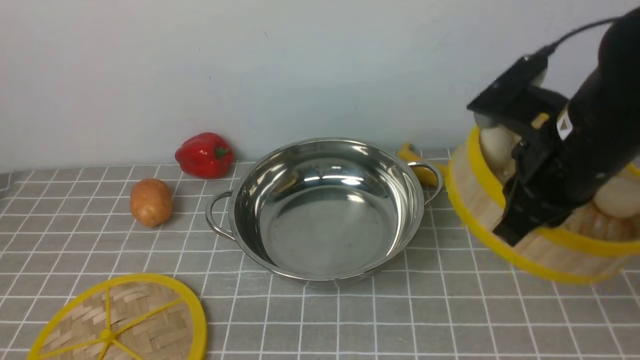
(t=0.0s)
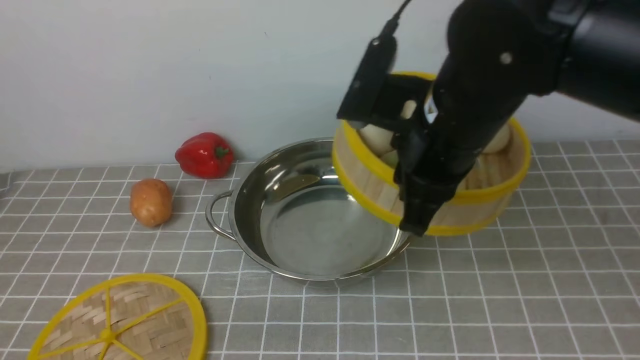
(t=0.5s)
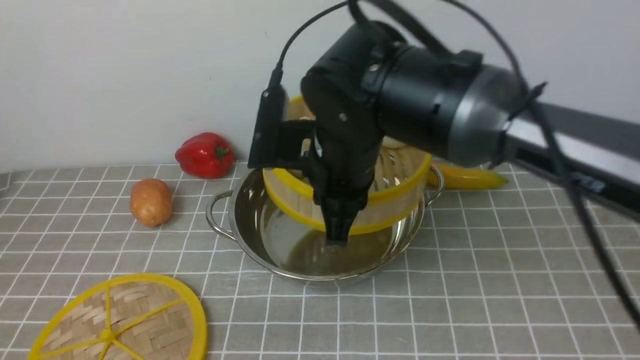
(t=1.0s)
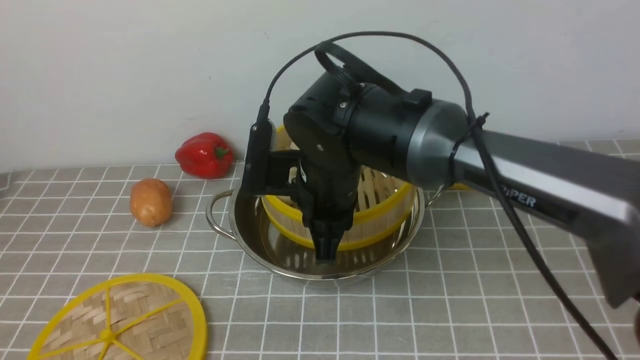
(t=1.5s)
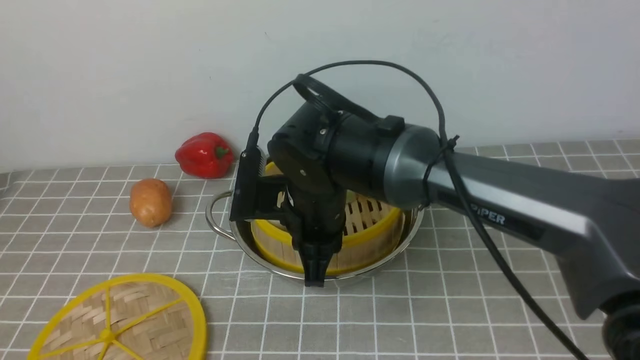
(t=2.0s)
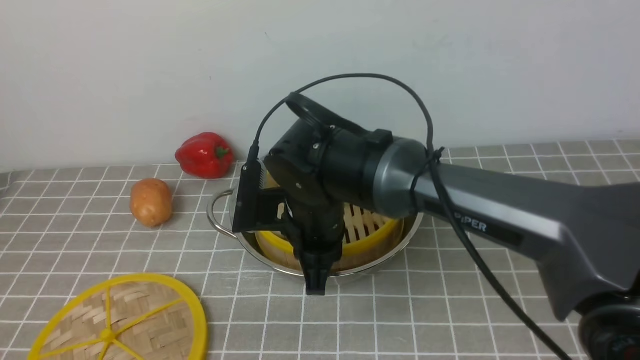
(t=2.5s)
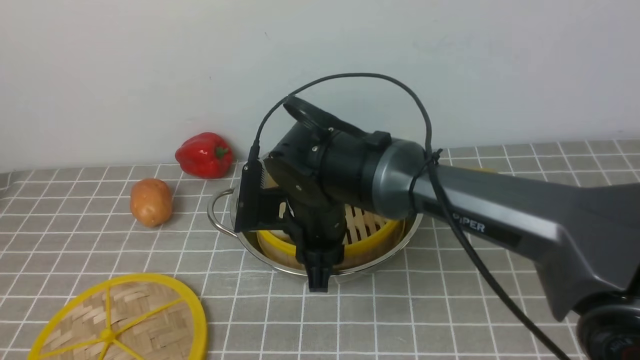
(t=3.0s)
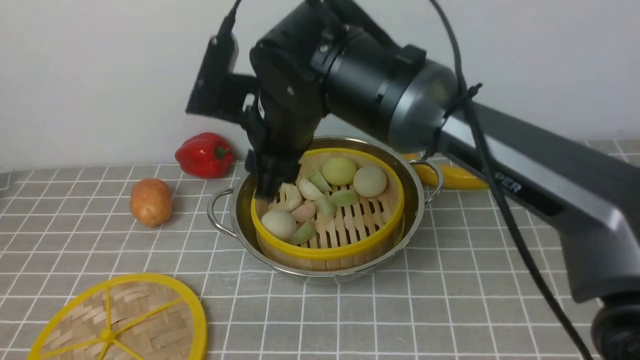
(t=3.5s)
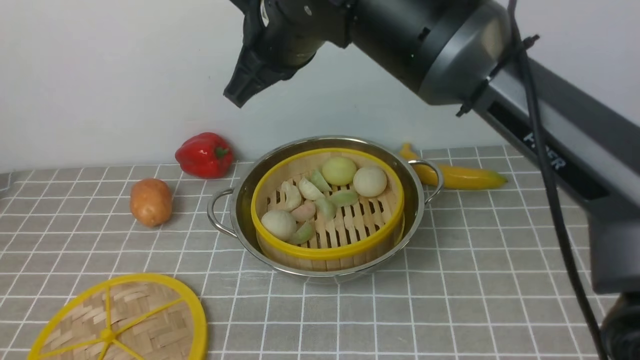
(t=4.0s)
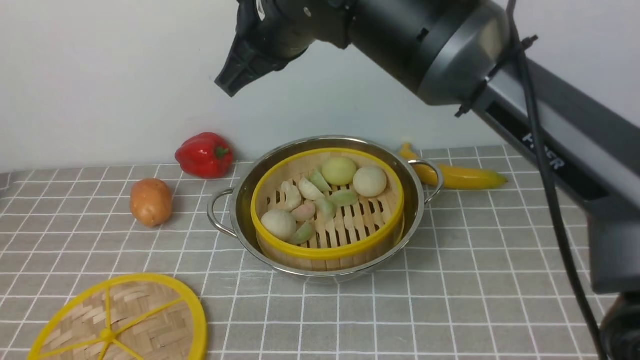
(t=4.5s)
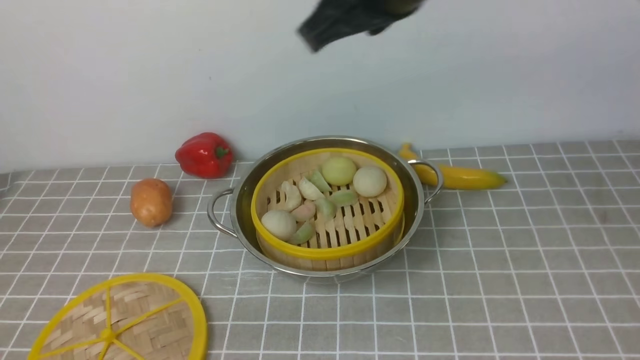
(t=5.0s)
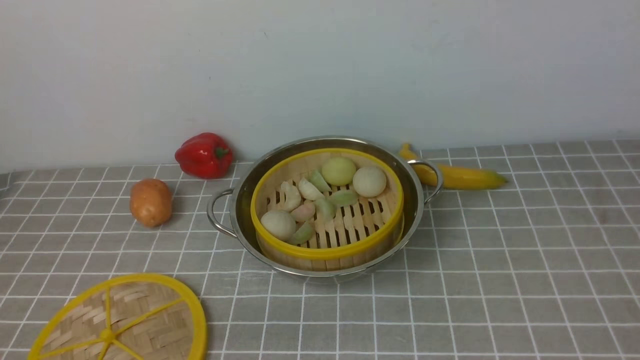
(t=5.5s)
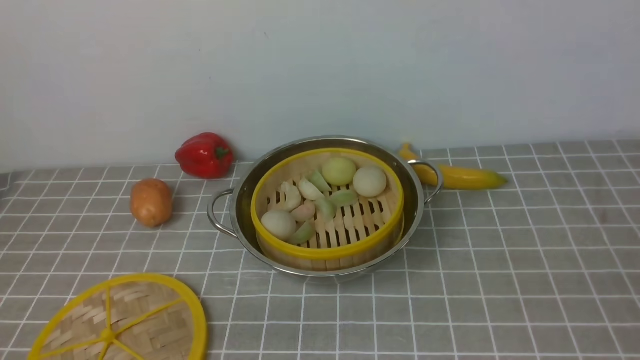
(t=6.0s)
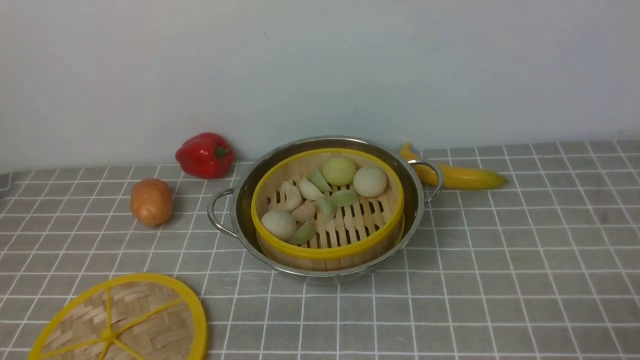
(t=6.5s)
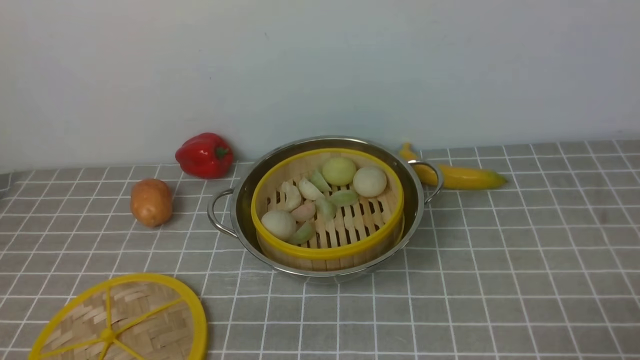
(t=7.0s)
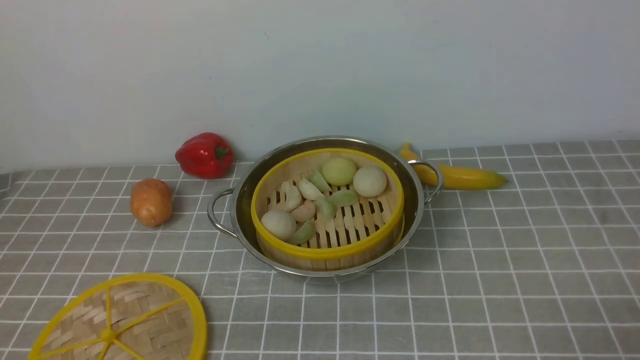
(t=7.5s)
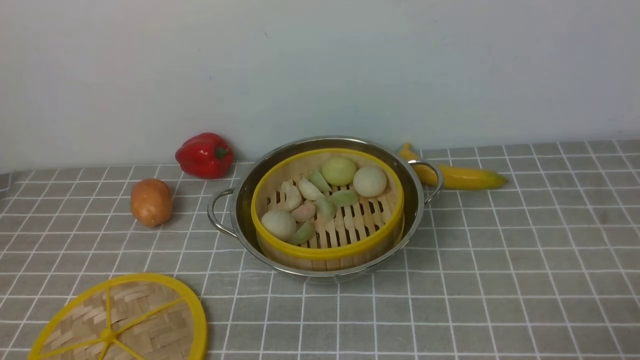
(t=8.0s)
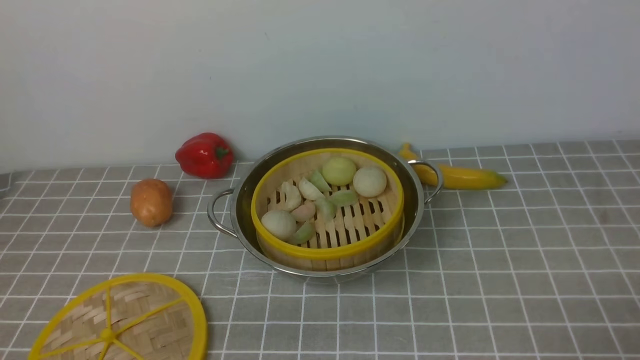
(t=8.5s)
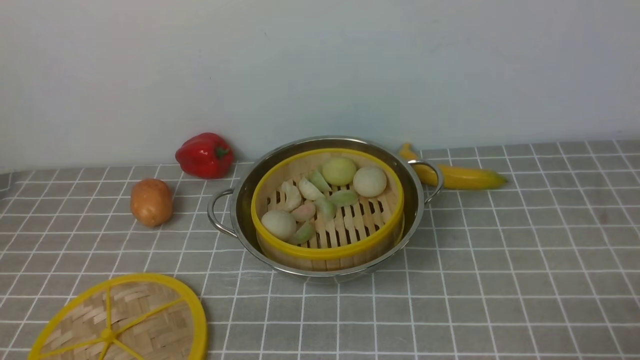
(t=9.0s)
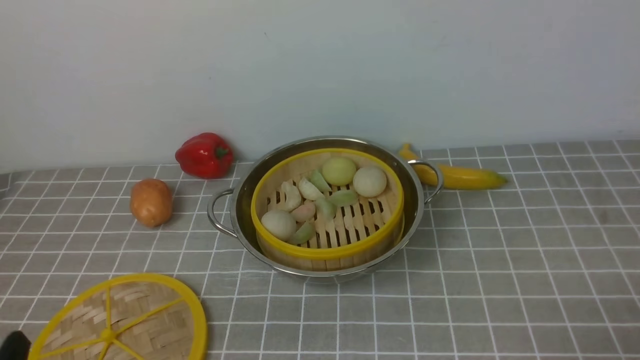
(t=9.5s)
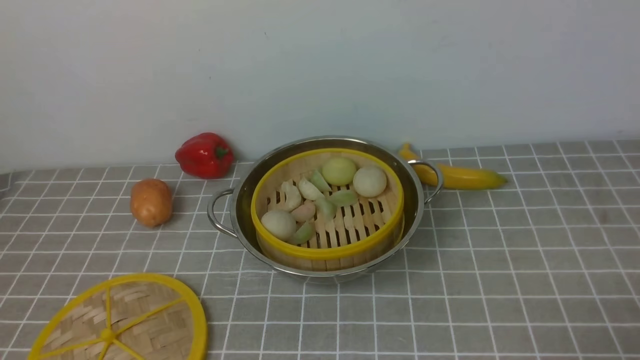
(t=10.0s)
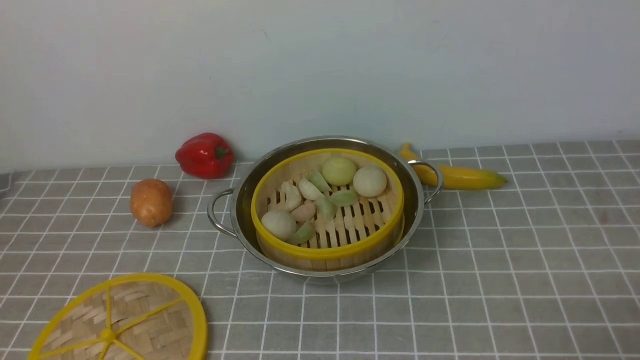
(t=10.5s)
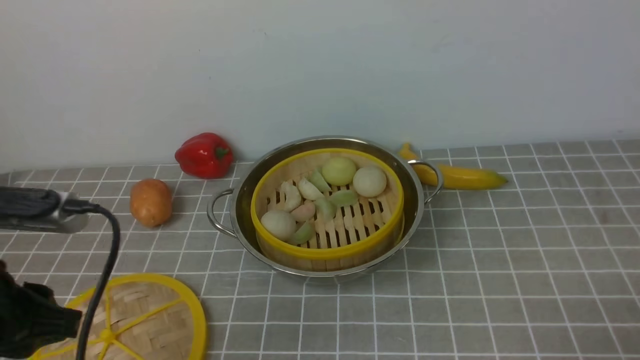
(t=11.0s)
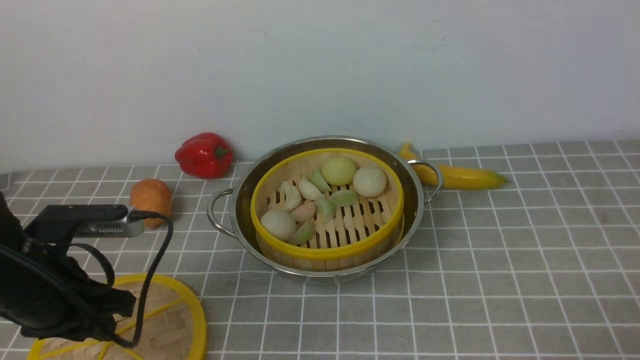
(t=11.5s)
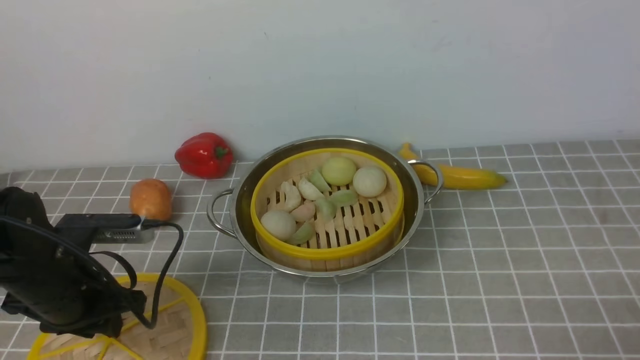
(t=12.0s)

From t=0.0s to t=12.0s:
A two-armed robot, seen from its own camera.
Task of the whole recording: place the steamer in the pot on the grey tablecloth, and put the lid on the steamer.
Step, from t=0.0s to t=3.0s: use the right arm to put the steamer into the iron steamer pot in the middle.
From t=0.0s to t=2.0s: The right gripper heads to the left, covering about 20 cm.
From t=2.0s to t=4.0s: The right gripper travels upward by some 15 cm, and opens and closes again.
From t=4.0s to t=6.0s: The right gripper heads to the right and backward, covering roughly 40 cm.
From t=10.0s to t=12.0s: The left gripper heads forward, covering roughly 20 cm.

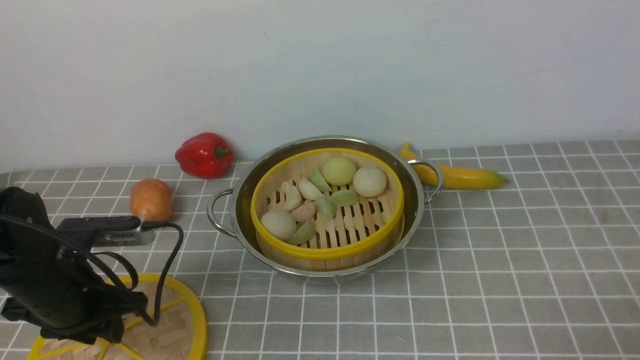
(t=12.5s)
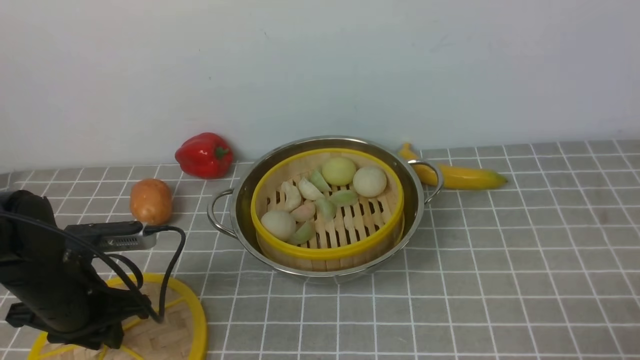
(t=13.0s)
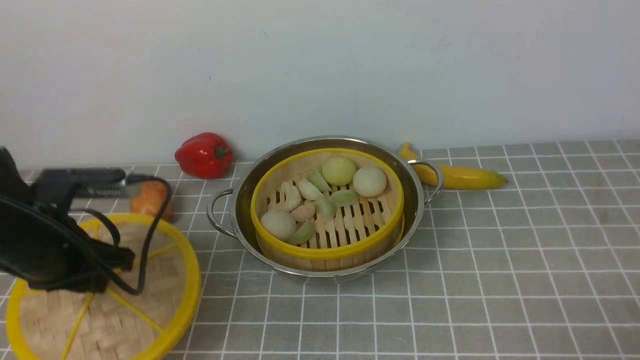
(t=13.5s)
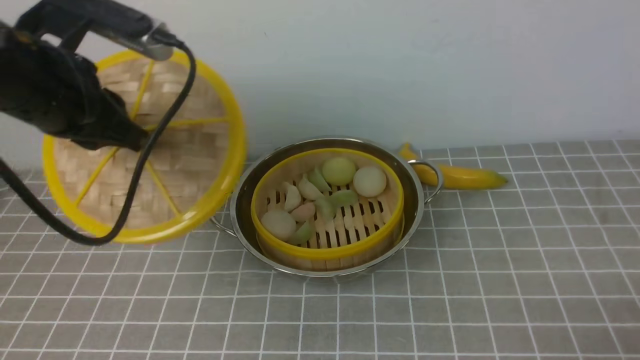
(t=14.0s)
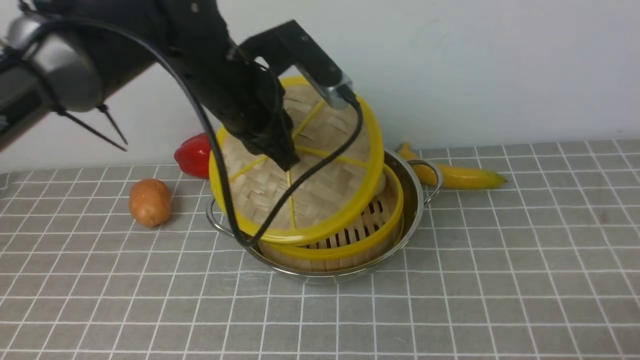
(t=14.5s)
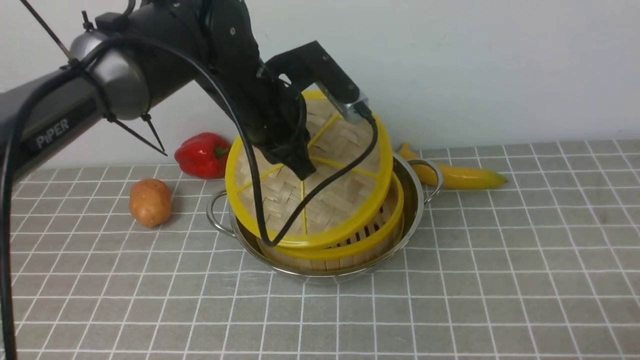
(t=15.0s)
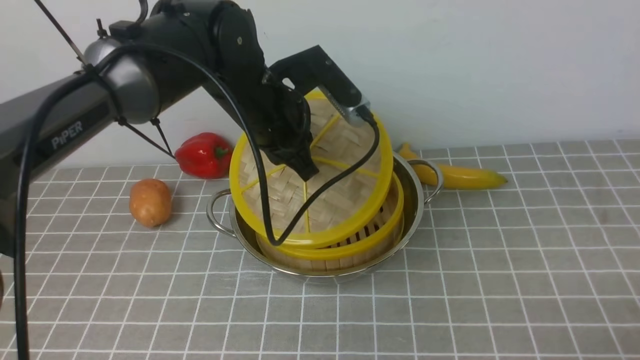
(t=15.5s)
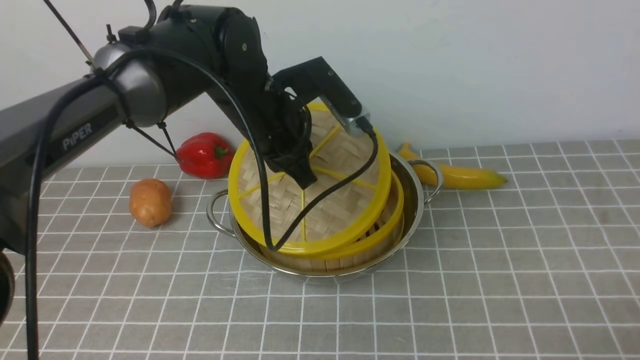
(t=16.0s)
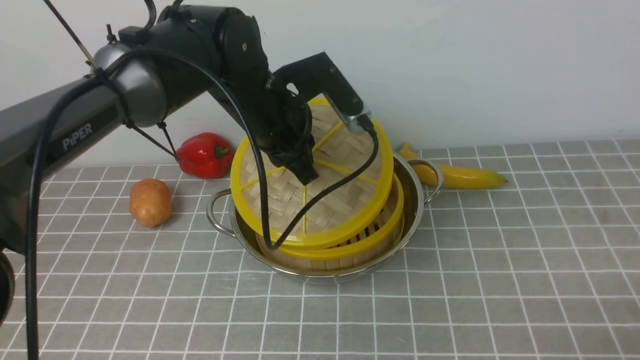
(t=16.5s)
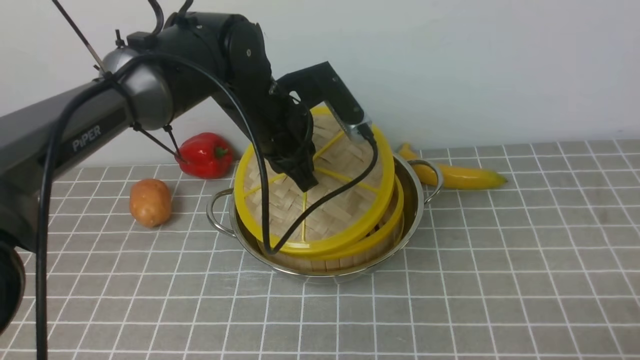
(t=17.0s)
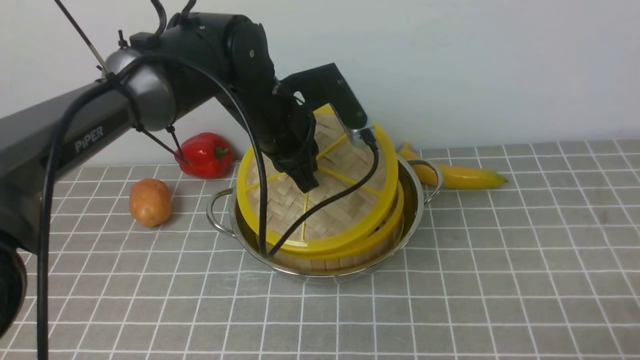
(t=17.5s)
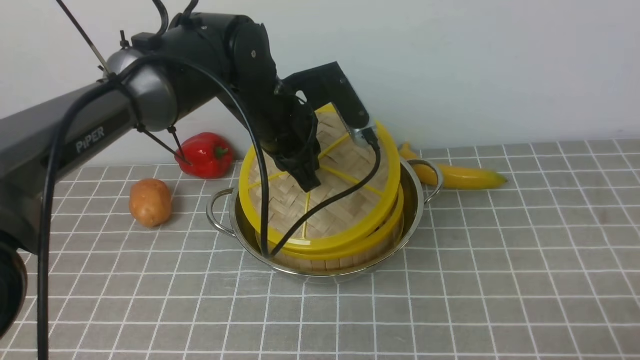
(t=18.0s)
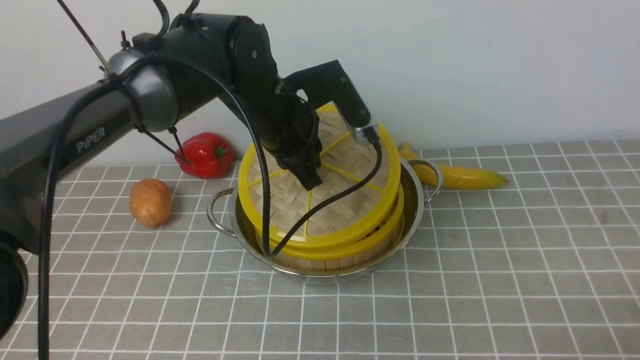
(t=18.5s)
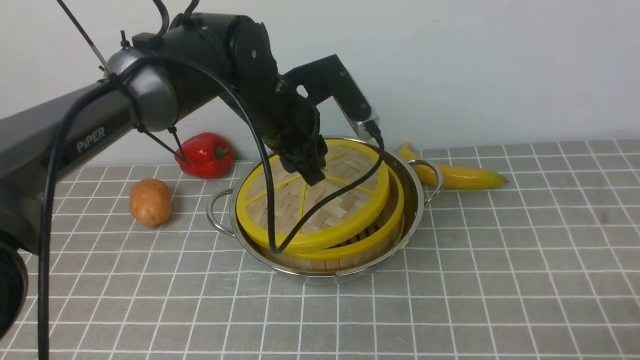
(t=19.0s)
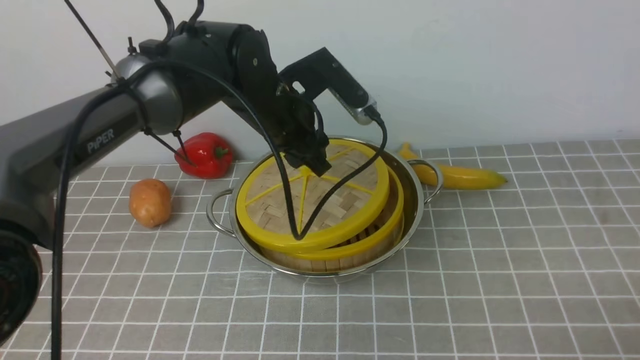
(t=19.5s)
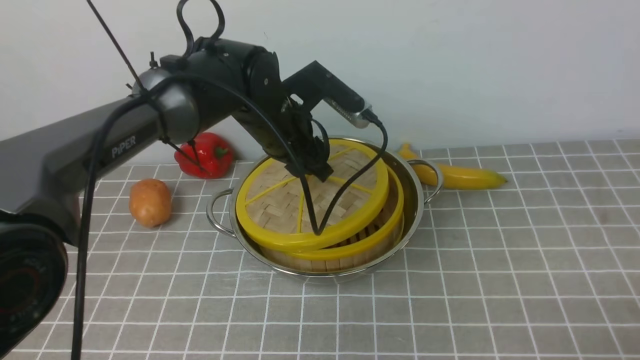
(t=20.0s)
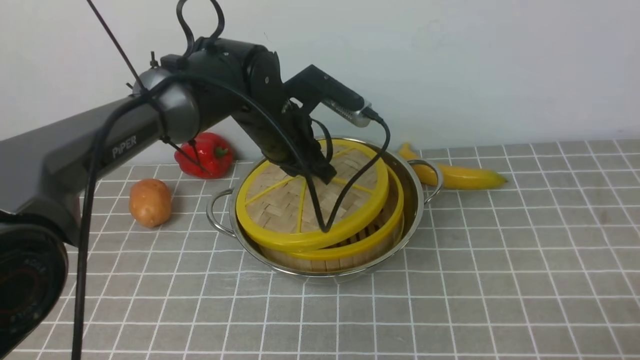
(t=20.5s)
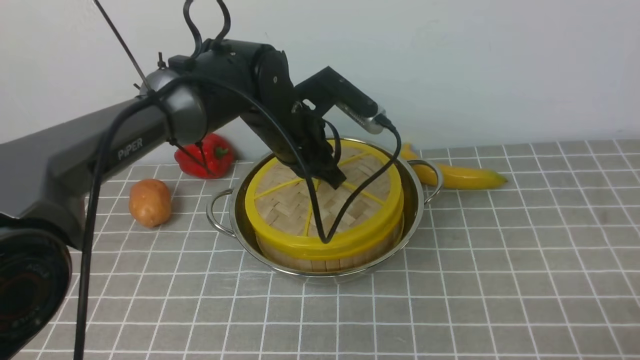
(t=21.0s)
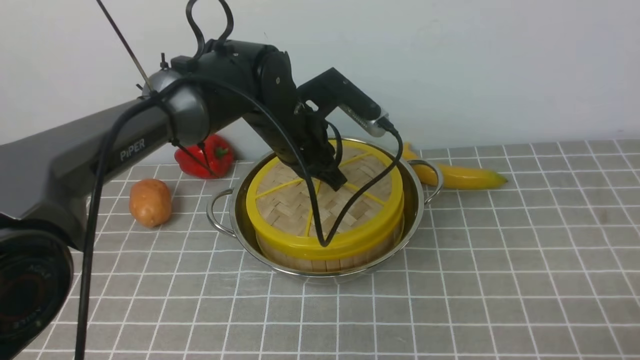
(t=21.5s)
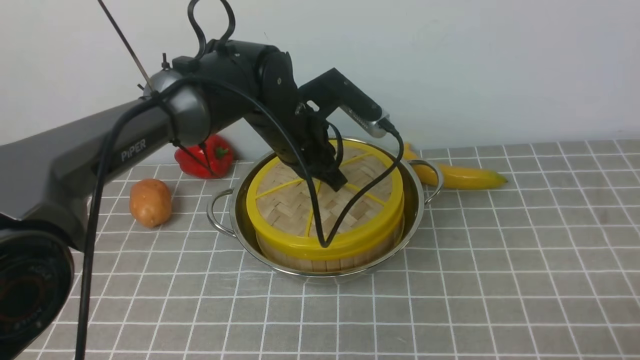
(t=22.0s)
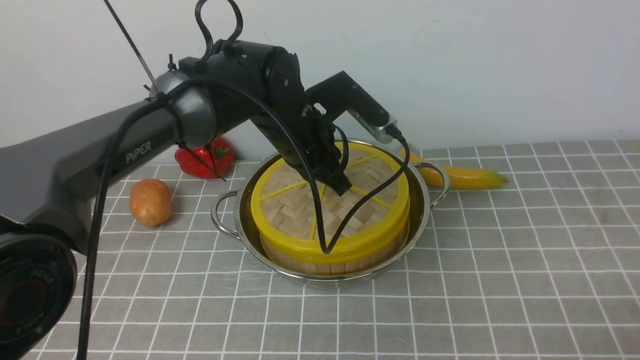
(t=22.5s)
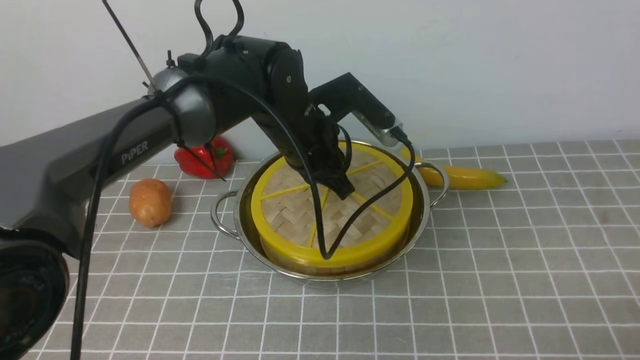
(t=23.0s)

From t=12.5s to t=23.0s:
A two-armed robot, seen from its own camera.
Task of the whole recording: place the steamer in the pot on the grey tablecloth, and put the lid on the steamer.
From t=12.5s to t=14.5s: The left gripper travels upward, to the right and forward by approximately 25 cm.
From t=14.5s to t=16.5s: The left gripper is displaced downward by some 5 cm.
From t=16.5s to t=19.0s: The left gripper opens its fingers.
From t=19.0s to t=21.0s: The left gripper closes.
From t=21.0s to t=23.0s: The grippers move only a little.
